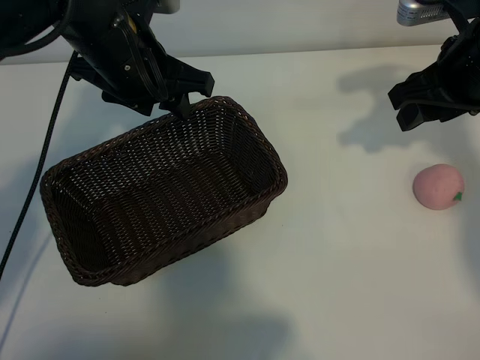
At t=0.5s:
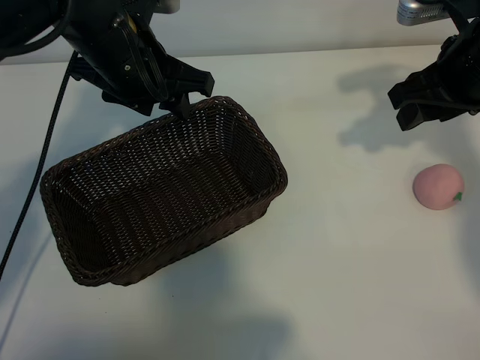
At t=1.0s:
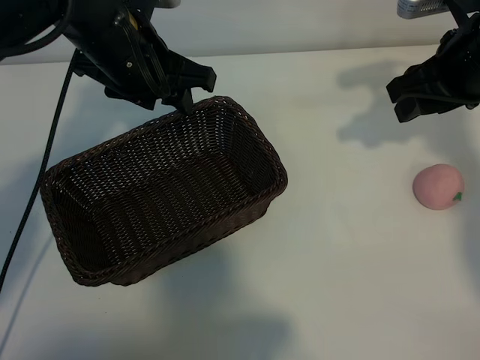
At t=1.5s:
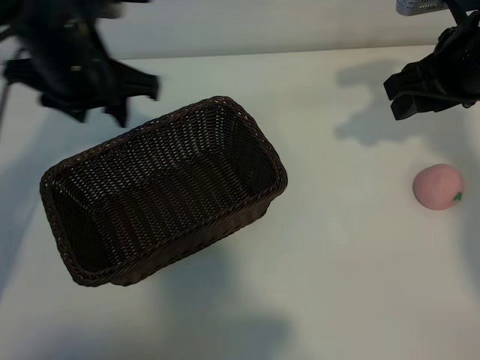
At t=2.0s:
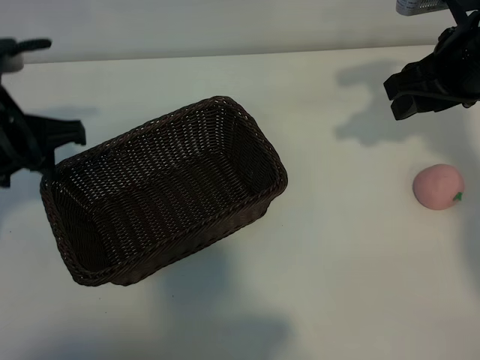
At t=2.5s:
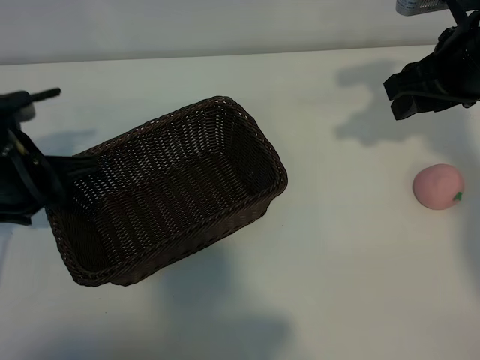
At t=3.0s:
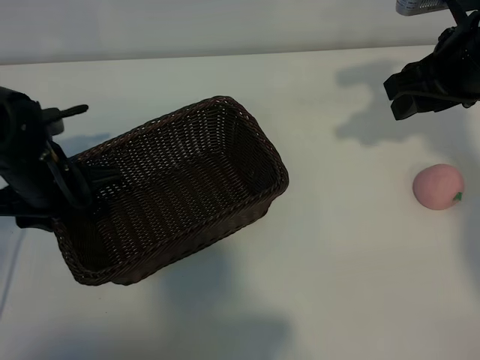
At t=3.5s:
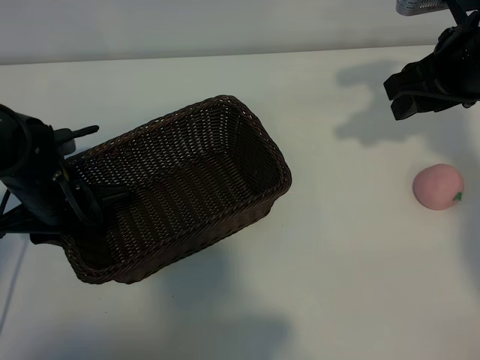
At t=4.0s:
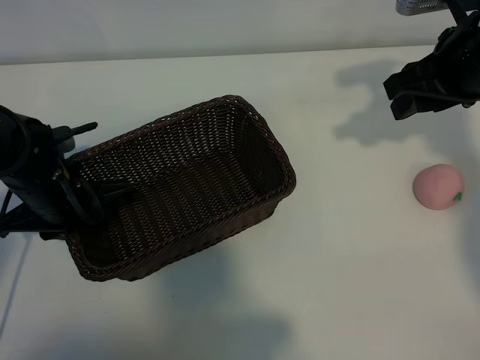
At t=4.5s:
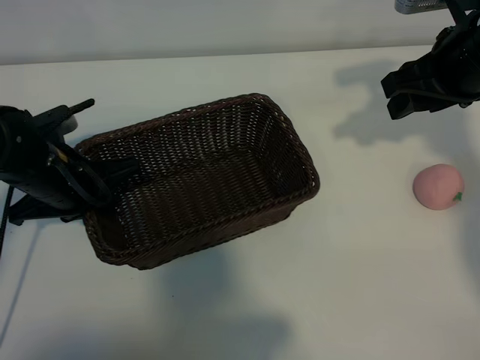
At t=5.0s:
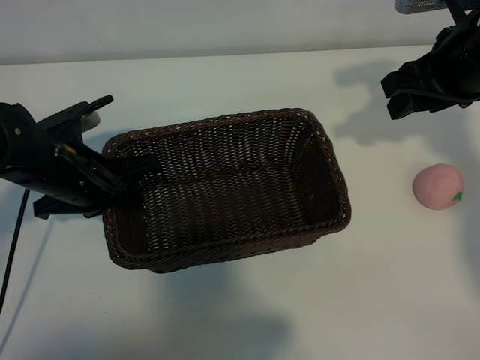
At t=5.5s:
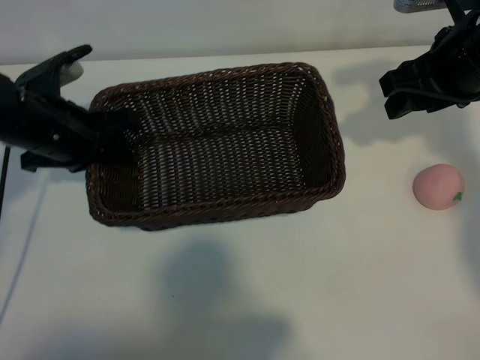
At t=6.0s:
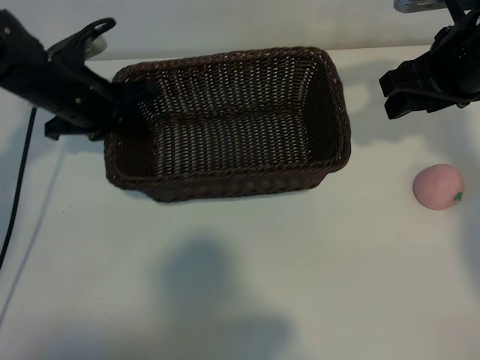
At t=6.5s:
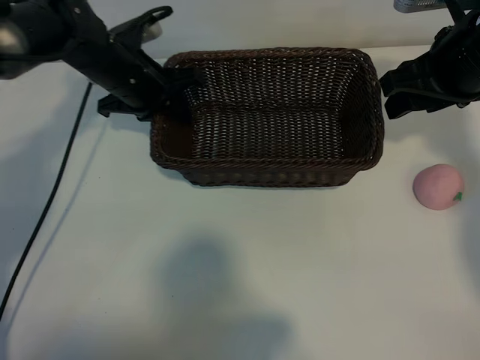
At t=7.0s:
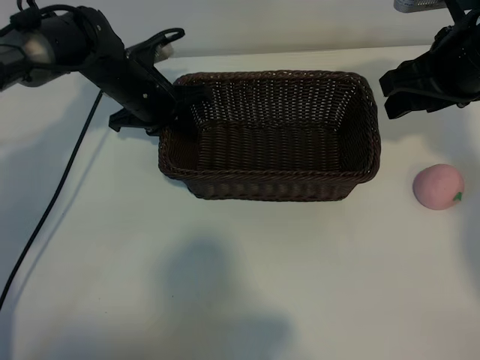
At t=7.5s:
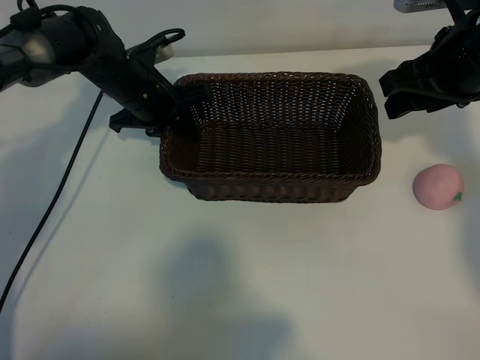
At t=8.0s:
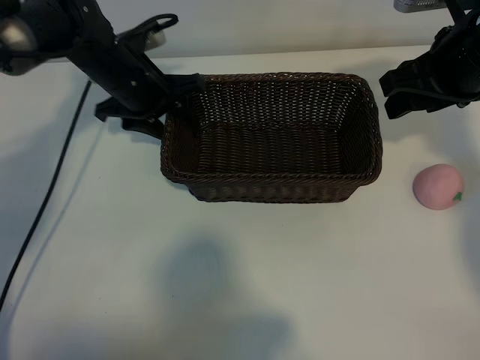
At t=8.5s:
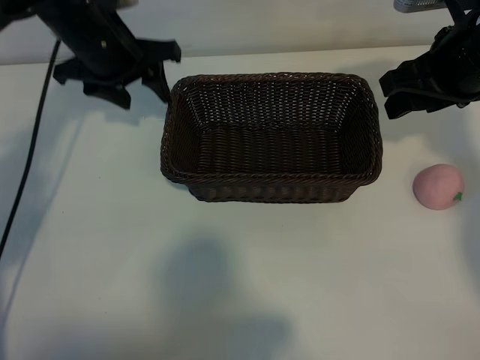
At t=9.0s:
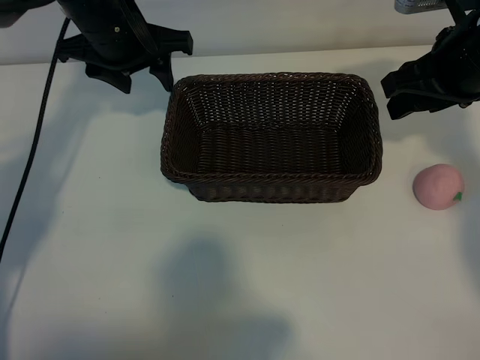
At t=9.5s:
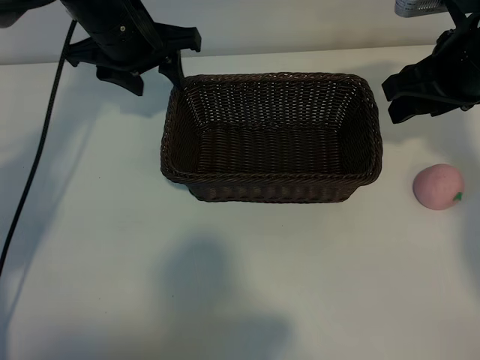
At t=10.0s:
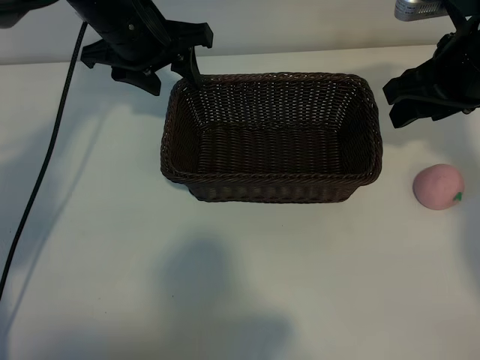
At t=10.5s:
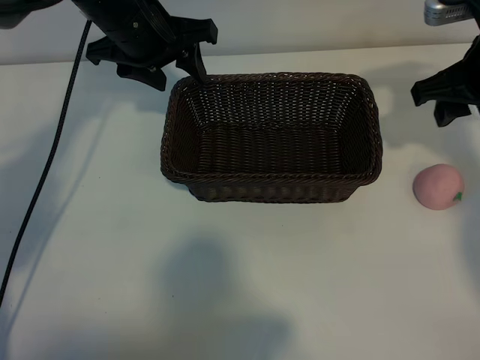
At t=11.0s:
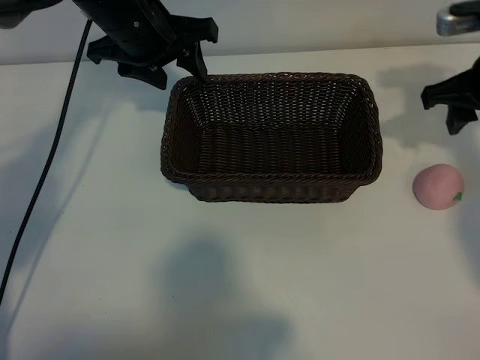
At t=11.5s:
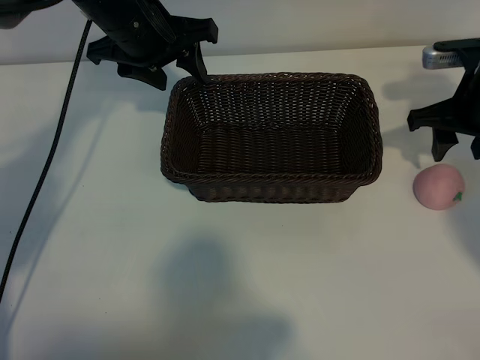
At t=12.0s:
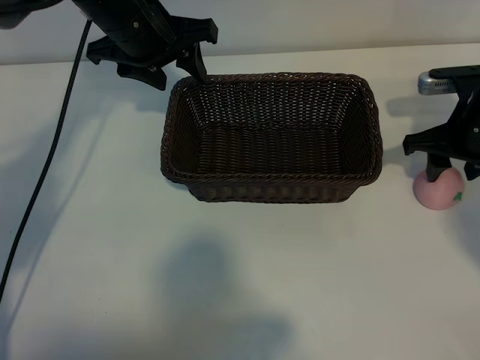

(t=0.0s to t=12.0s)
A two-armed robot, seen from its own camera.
Task of the whole recording: pick up the peach and put it into the basket.
Step, t=1.5s - t=3.5s: Grasp the basket with left gripper.
Step, t=4.0s - t=8.0s: Place the basket in the center of view with left gripper.

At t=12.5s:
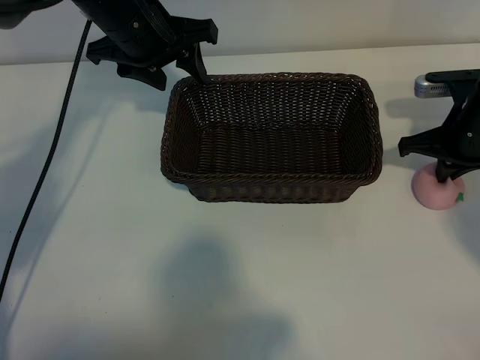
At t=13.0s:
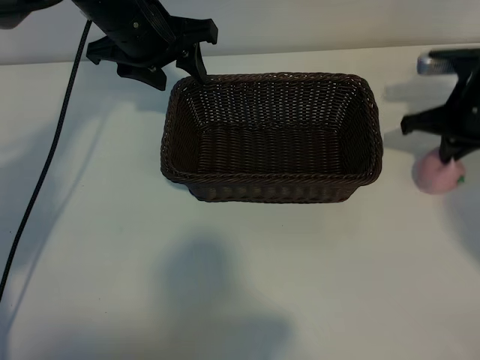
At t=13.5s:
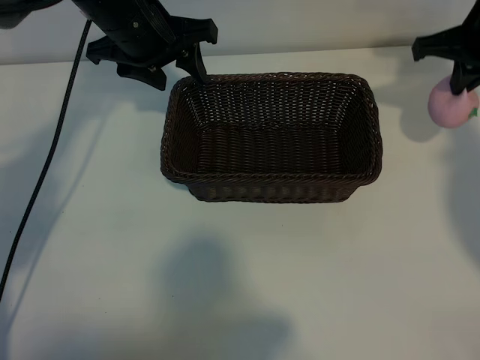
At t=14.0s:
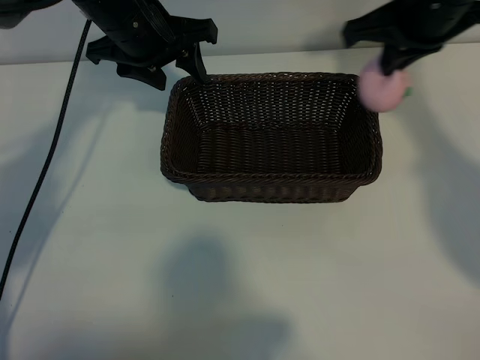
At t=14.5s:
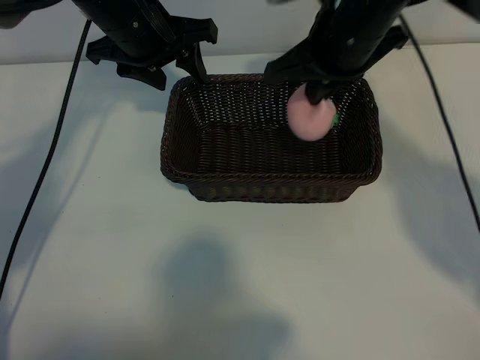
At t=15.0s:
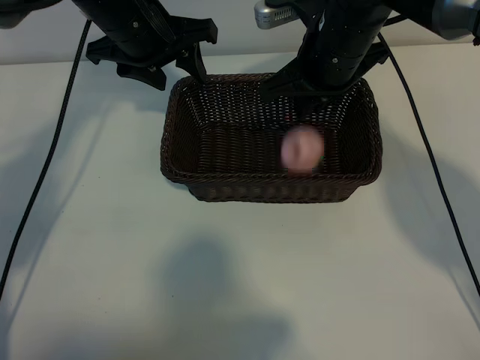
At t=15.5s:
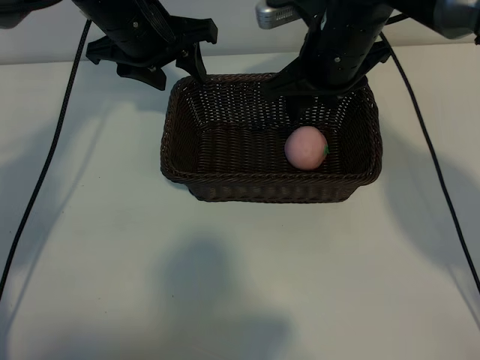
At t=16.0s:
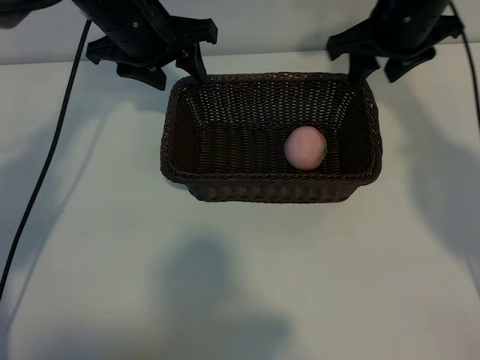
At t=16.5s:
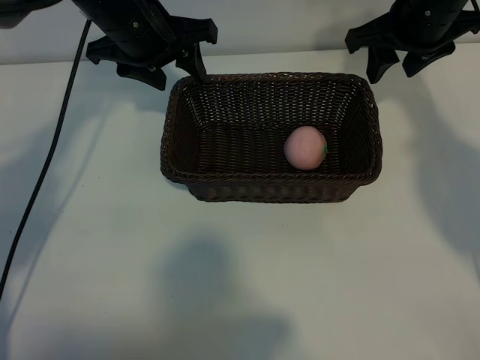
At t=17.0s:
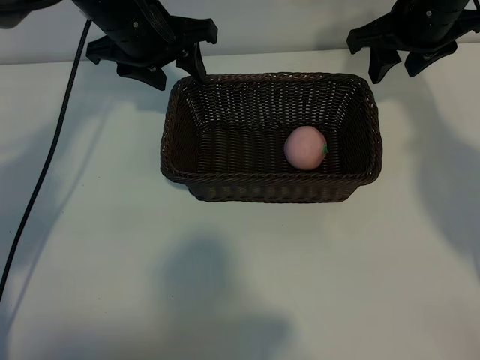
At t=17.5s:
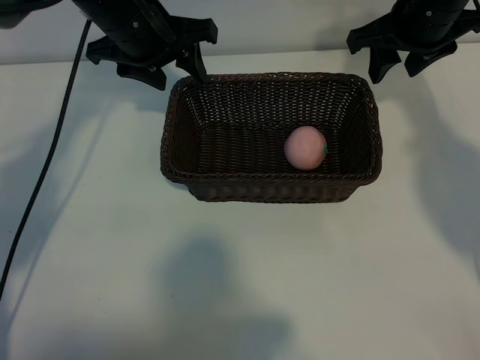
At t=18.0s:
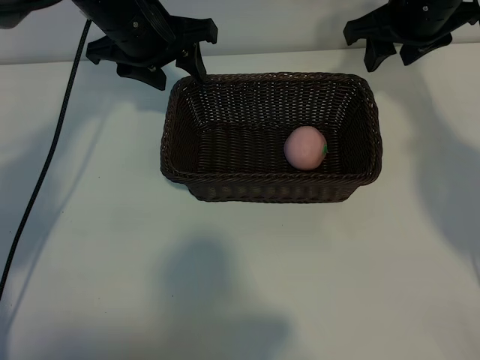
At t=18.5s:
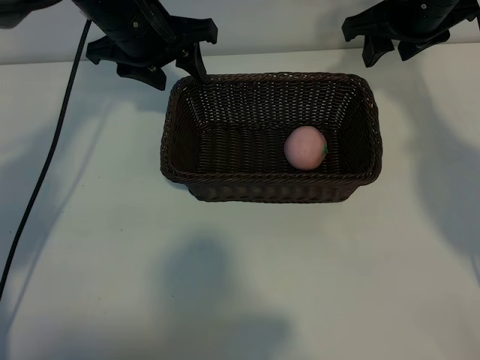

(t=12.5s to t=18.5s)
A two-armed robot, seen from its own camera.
Task of the whole recording: pick up the peach and put it into the basket.
Step, t=13.0s - t=15.0s: Place the peach in the basket with right gripper.

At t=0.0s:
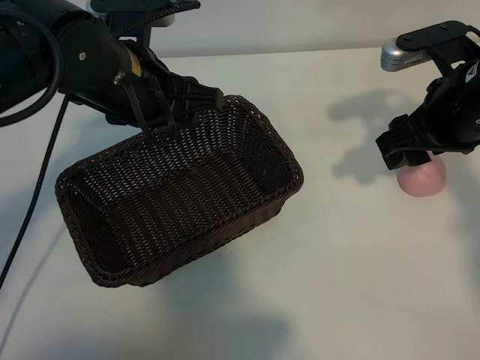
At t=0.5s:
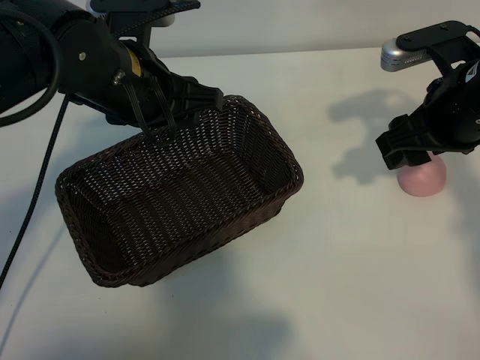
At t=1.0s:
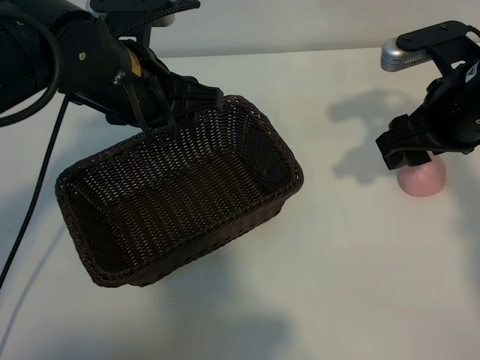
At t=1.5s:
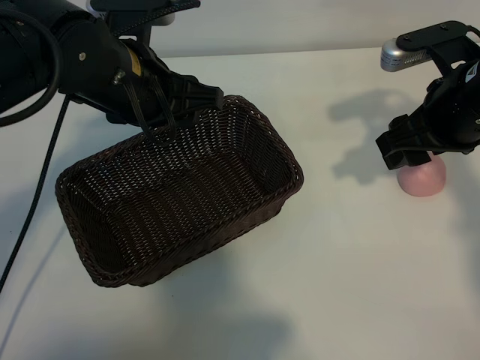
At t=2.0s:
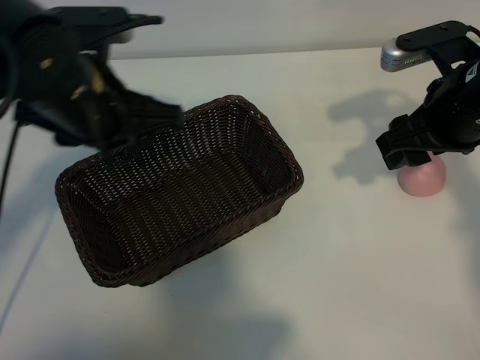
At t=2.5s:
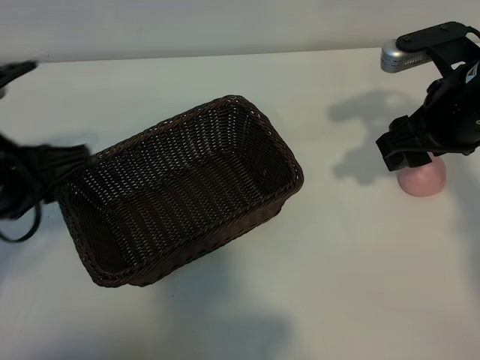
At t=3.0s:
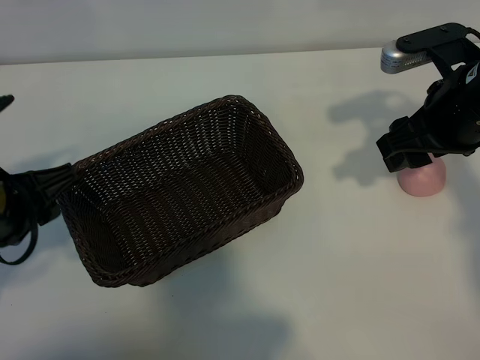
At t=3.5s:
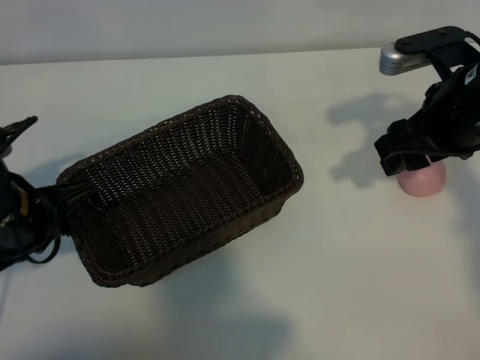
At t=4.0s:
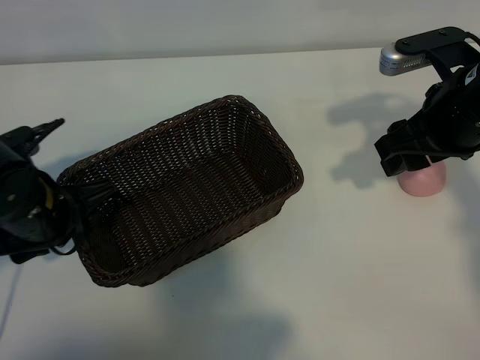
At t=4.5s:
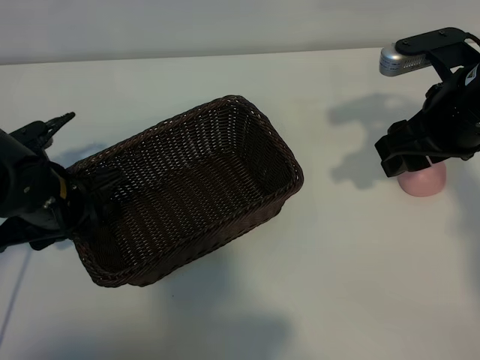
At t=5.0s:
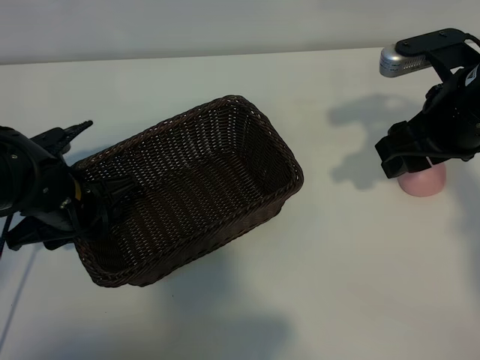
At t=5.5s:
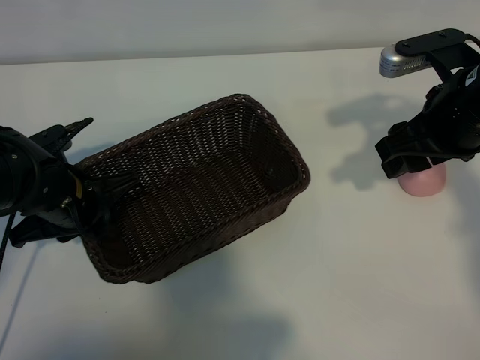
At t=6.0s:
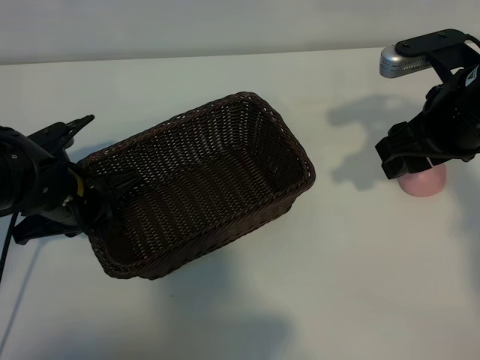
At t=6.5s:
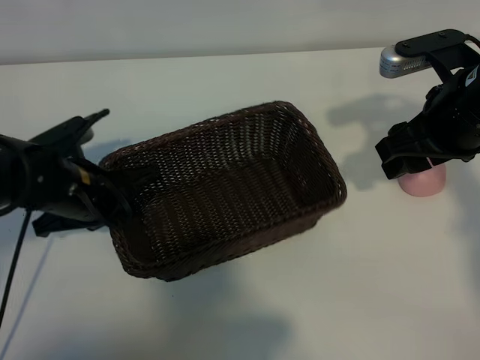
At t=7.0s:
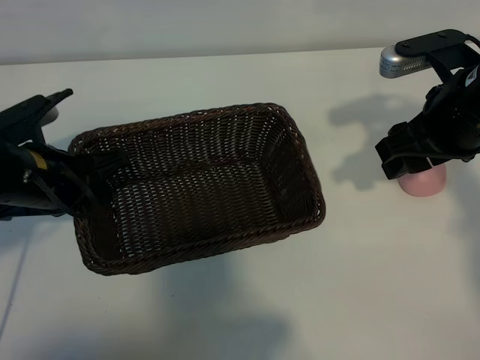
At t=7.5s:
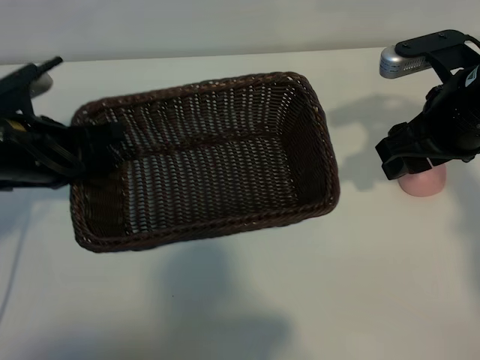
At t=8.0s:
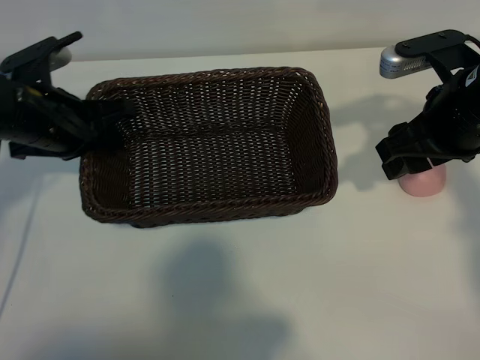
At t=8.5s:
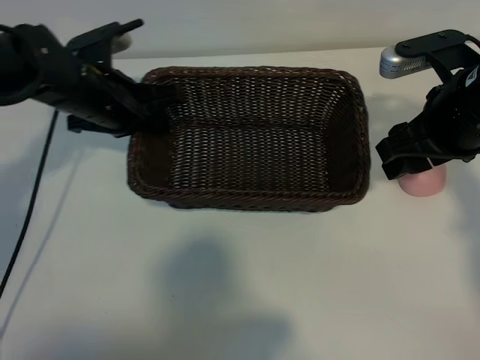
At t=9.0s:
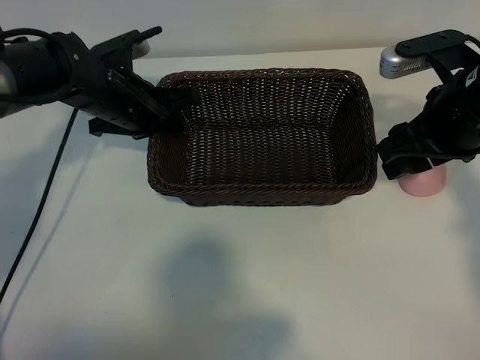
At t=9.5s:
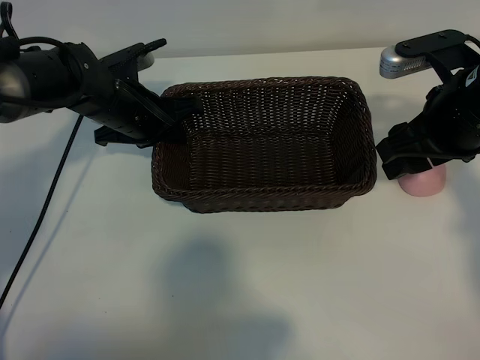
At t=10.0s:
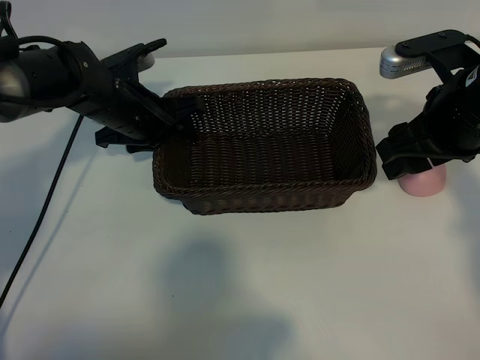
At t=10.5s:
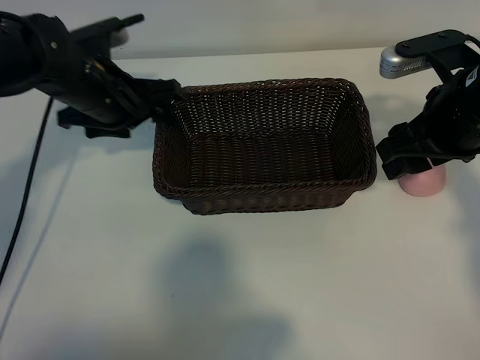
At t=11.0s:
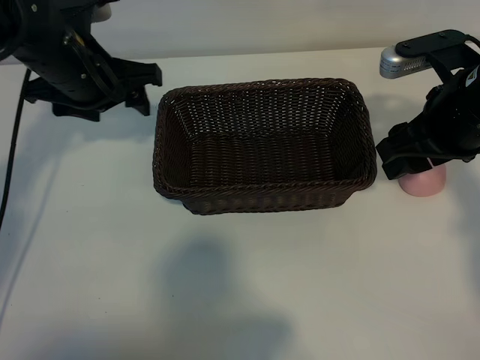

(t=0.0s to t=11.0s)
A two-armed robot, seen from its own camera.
Task of the whole recording: pick up the peach and put it into the basket.
Step, t=1.5s - t=5.5s: Grasp the basket with left gripper.
Step, t=6.0s - t=10.0s: Place the basket in the center of view with left gripper.
